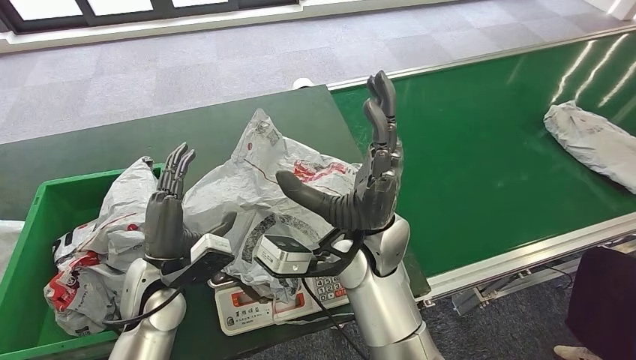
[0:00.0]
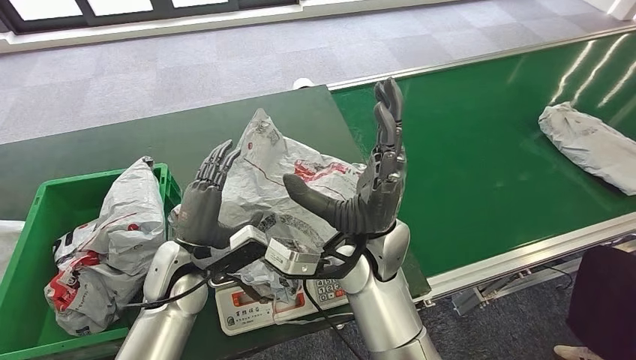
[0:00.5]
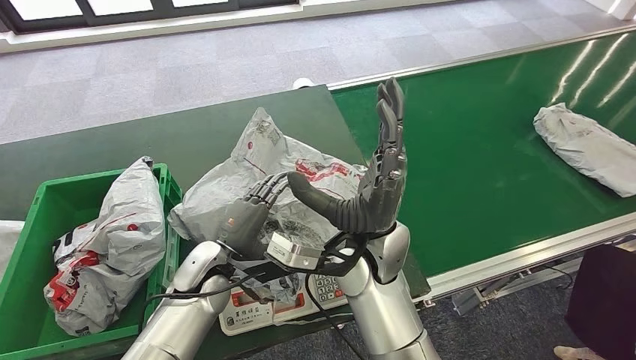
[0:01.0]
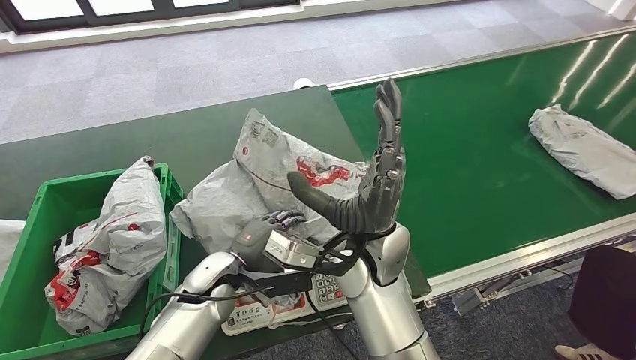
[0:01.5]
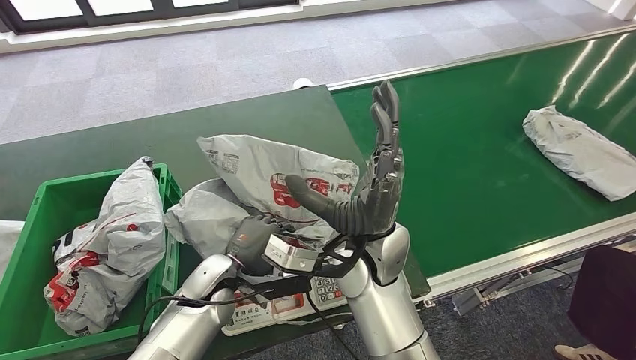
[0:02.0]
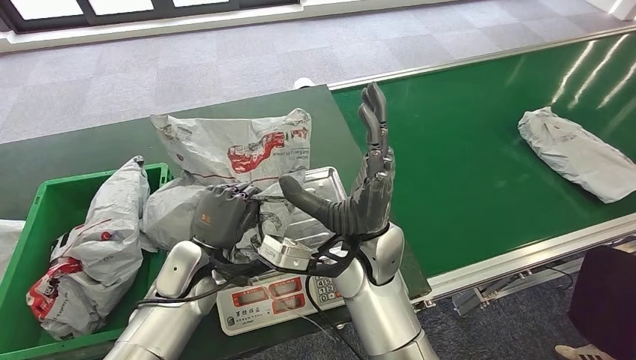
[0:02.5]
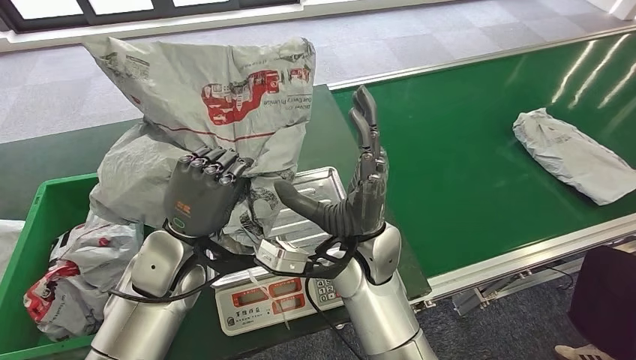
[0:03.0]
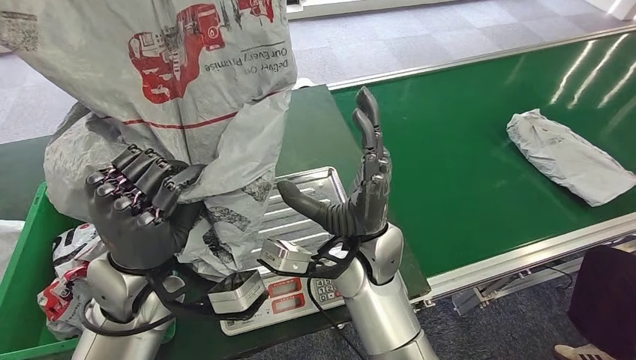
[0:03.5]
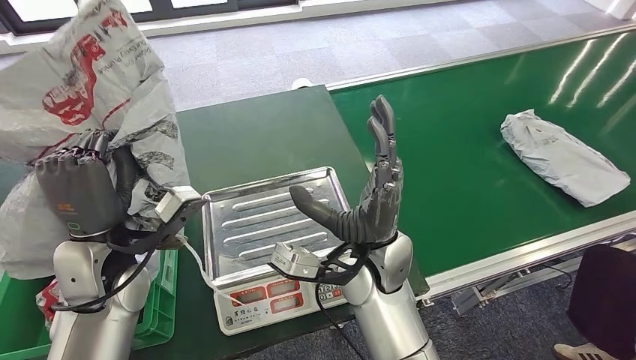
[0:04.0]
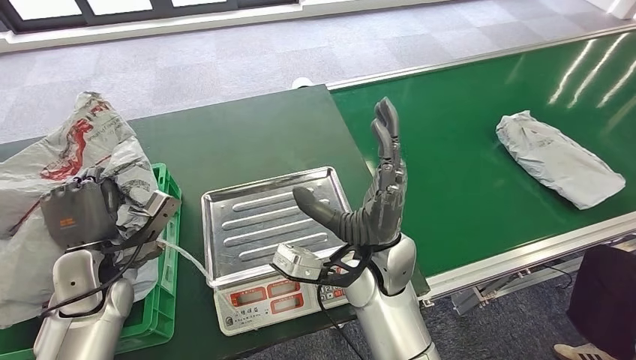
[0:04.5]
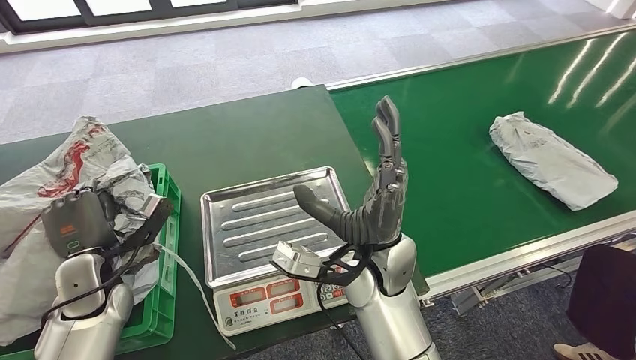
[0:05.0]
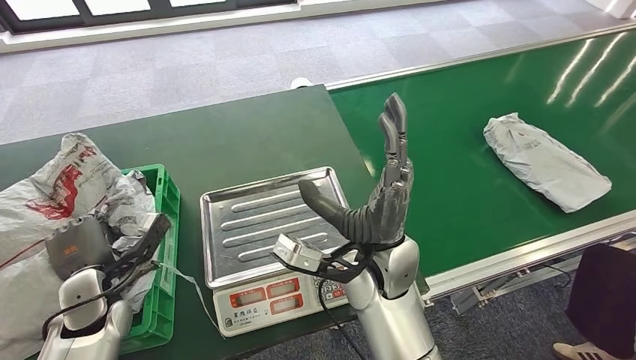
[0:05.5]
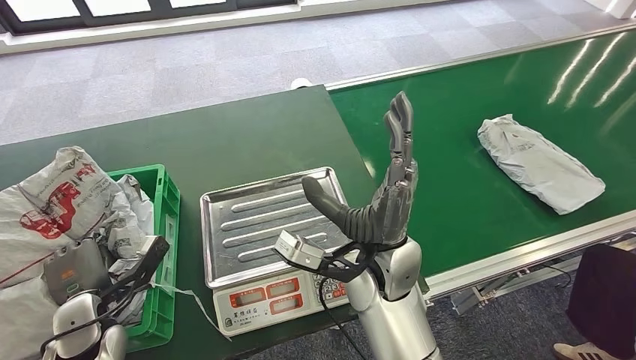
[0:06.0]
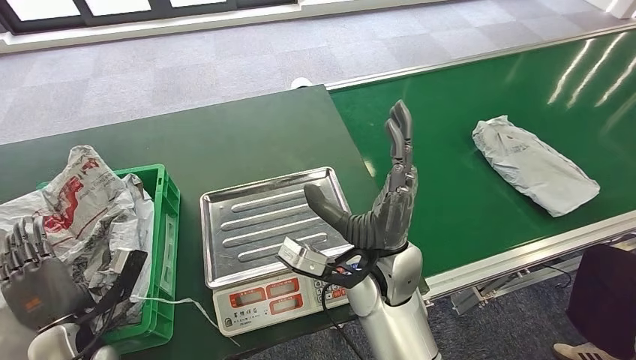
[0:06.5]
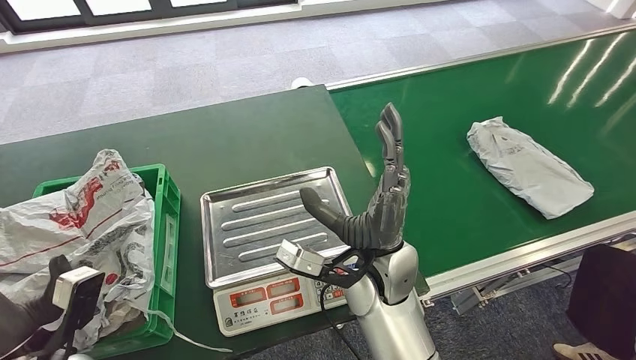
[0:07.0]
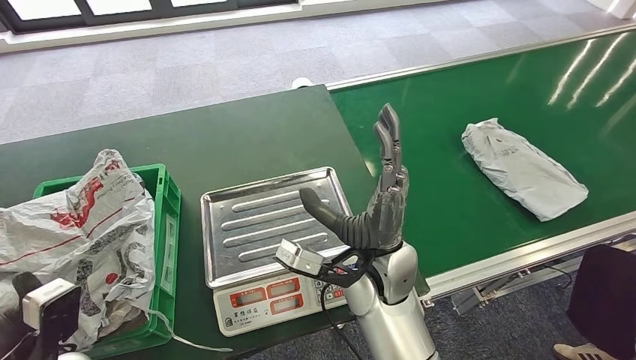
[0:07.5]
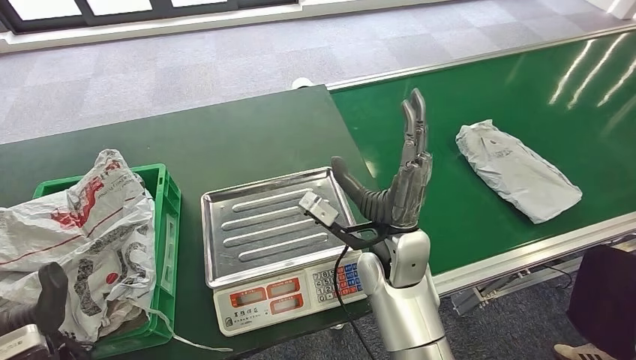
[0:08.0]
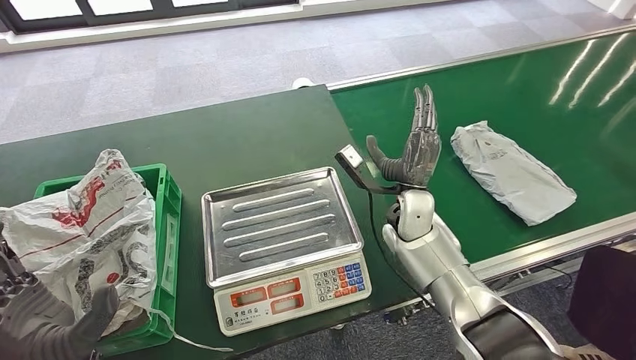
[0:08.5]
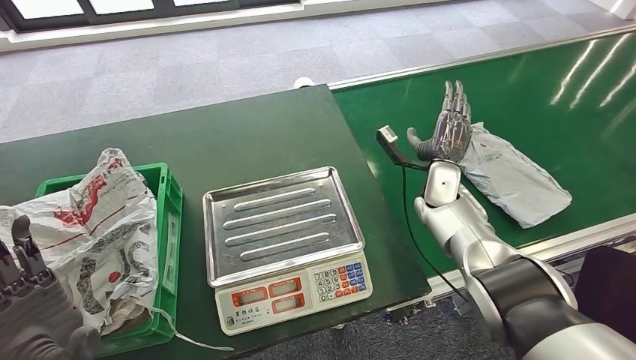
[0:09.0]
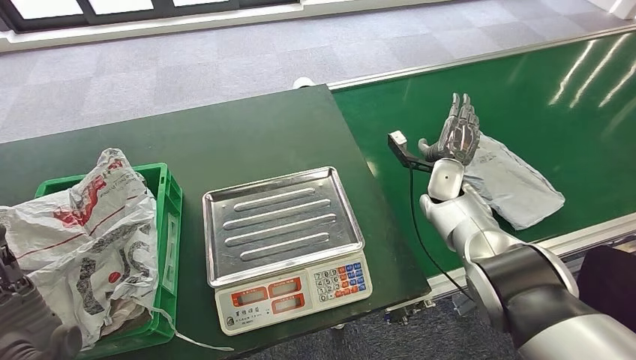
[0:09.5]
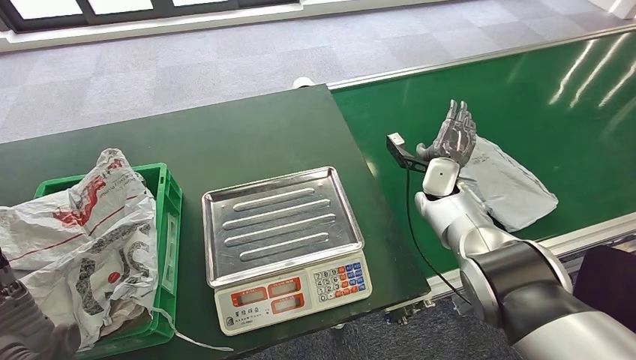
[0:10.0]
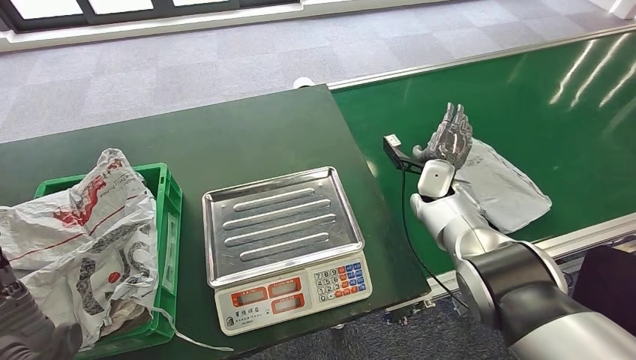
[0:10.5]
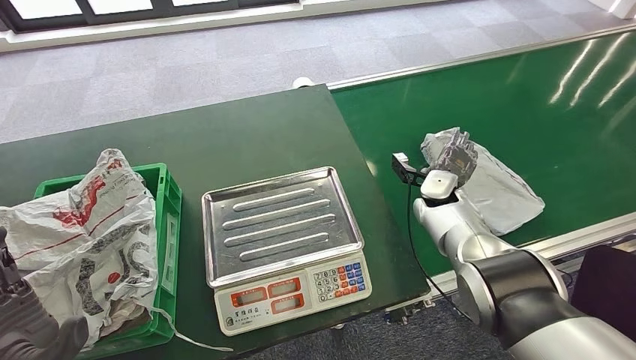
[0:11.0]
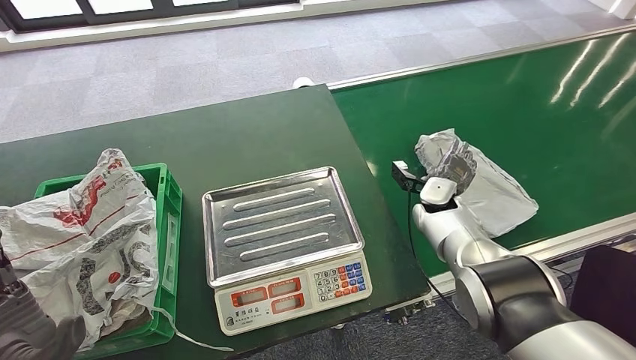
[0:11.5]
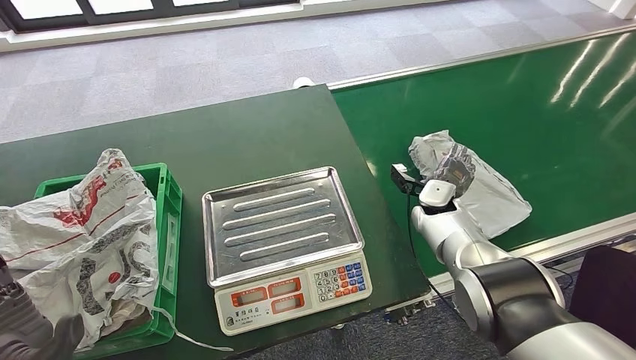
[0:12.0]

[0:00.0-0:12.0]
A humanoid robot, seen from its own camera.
Step, 0:02.0 to 0:03.0: Pick up the parcel from the inbound machine.
Step, 0:03.5 to 0:05.0: Place the parcel into the delivery box.
0:00.0 to 0:02.0: The left hand moves to the right and downward, about 10 cm.

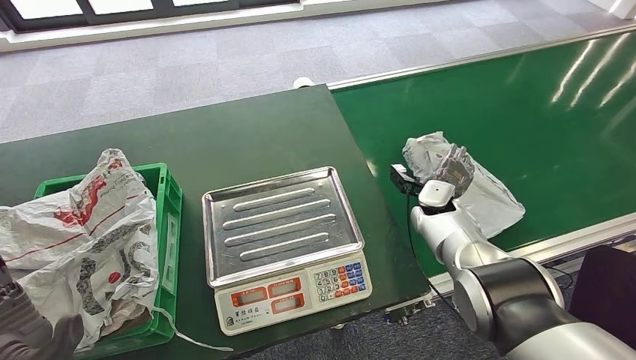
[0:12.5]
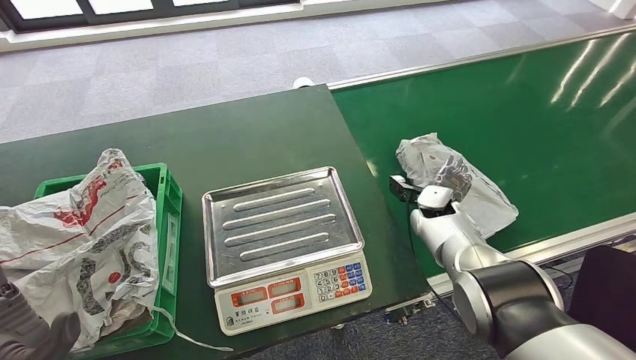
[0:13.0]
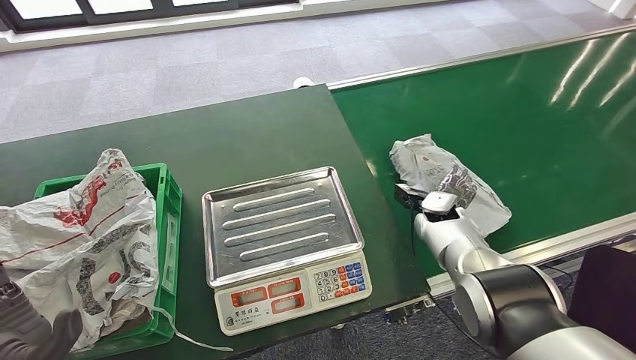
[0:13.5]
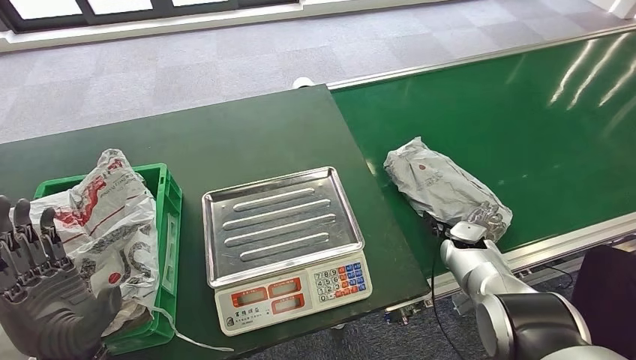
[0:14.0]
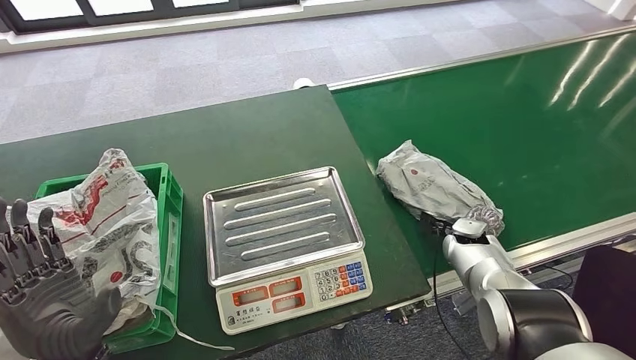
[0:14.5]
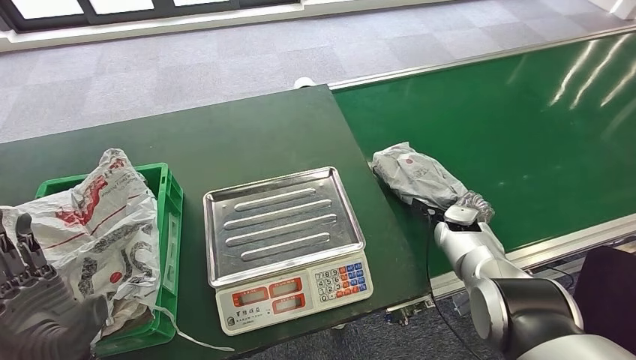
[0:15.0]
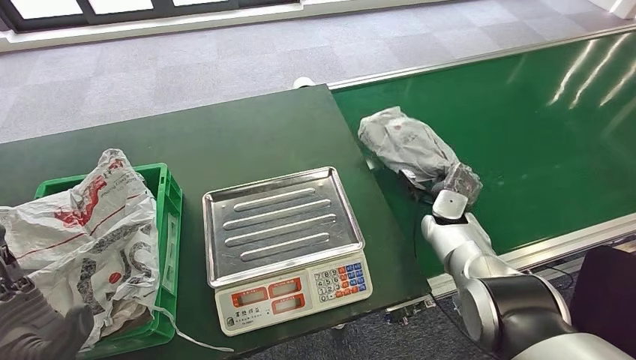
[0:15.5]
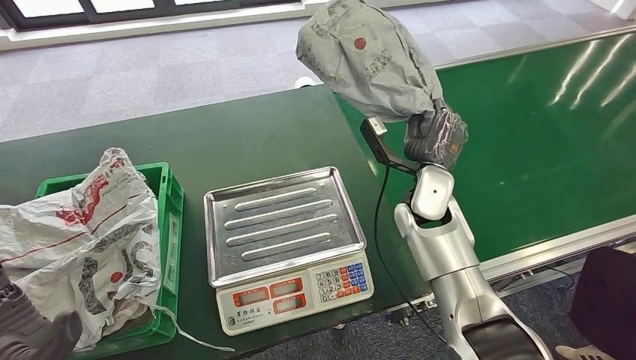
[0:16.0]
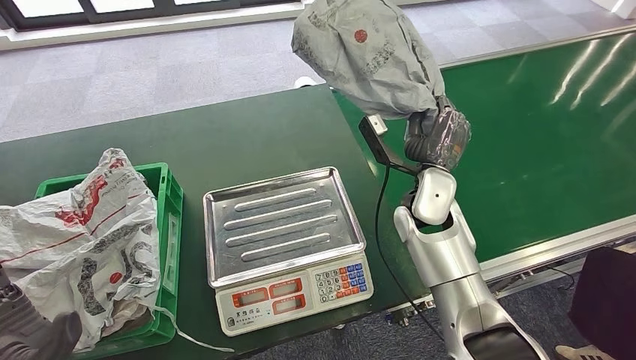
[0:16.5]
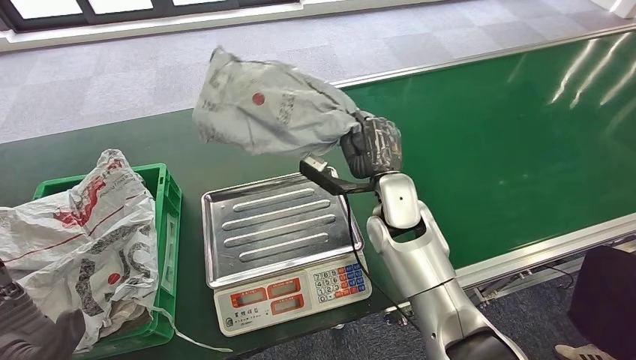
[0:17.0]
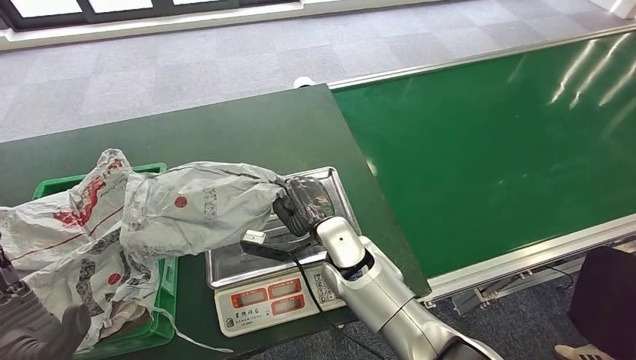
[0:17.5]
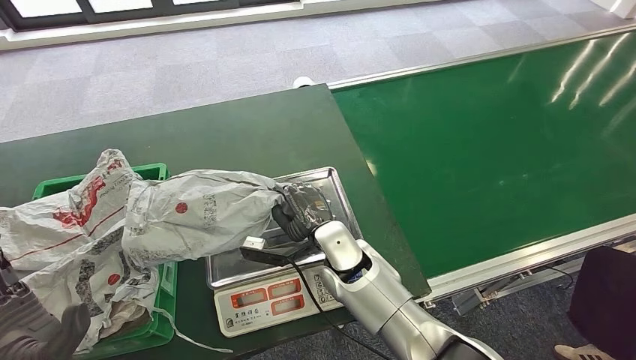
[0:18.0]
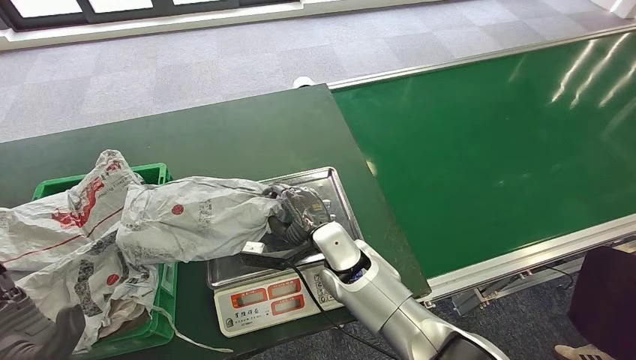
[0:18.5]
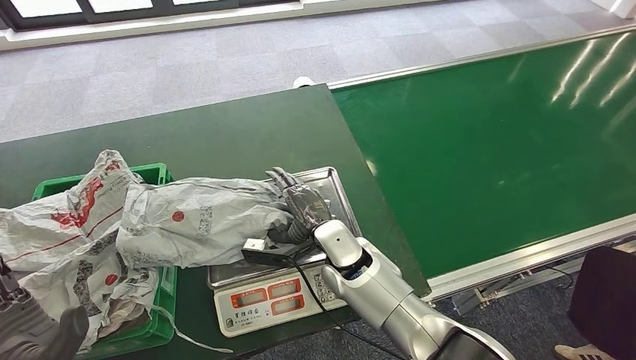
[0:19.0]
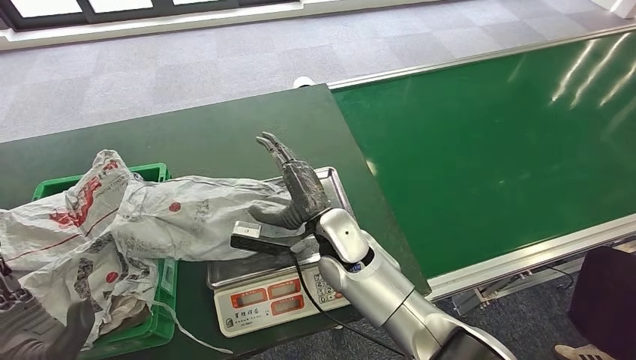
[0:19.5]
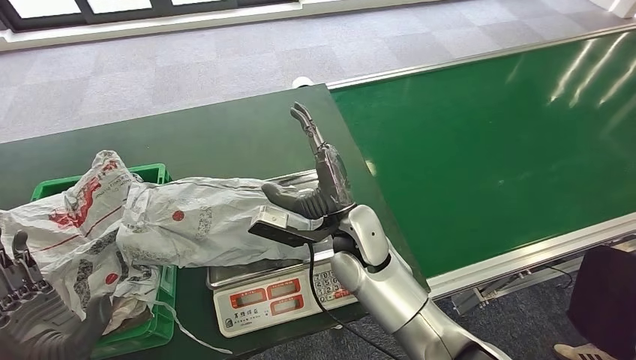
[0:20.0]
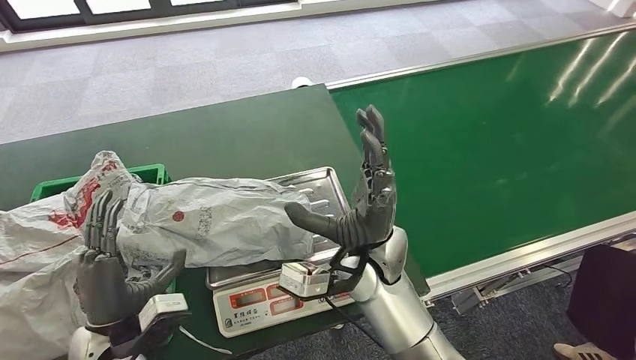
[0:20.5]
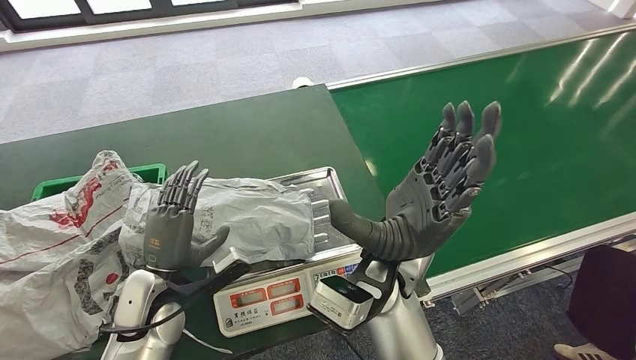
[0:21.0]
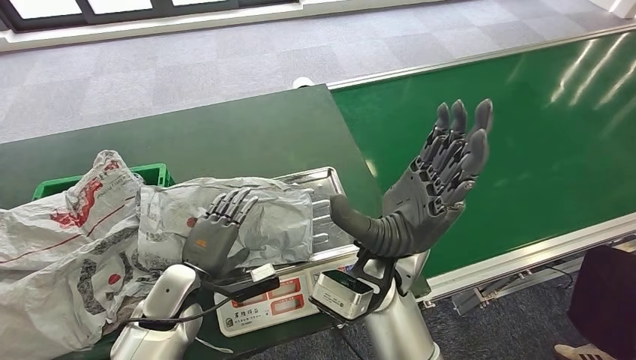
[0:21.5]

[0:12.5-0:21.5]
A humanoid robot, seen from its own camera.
Step, 0:14.5 to 0:16.0: Pick up the parcel from the conveyor belt.
Step, 0:16.5 to 0:19.0: Place the parcel onto the inbound machine.
0:12.5 to 0:14.5: The right hand heads backward, to the right and downward, covering some 10 cm.
